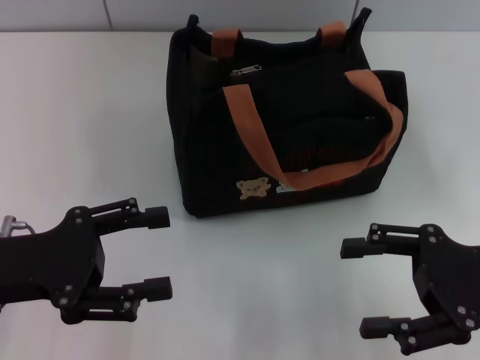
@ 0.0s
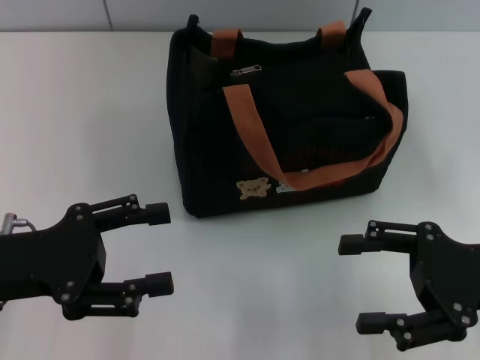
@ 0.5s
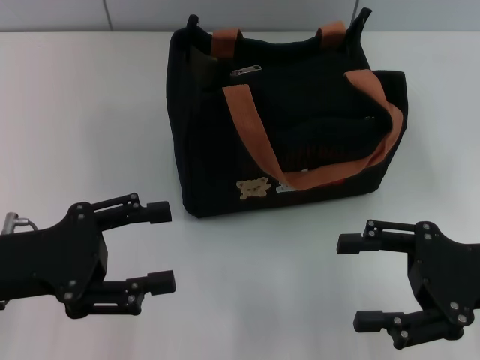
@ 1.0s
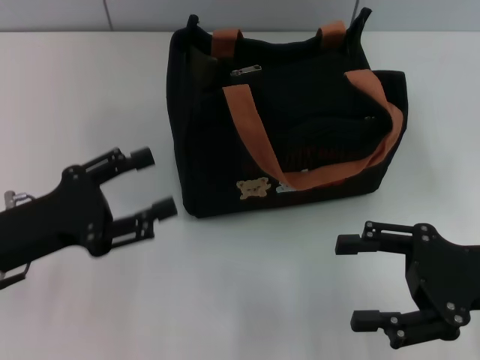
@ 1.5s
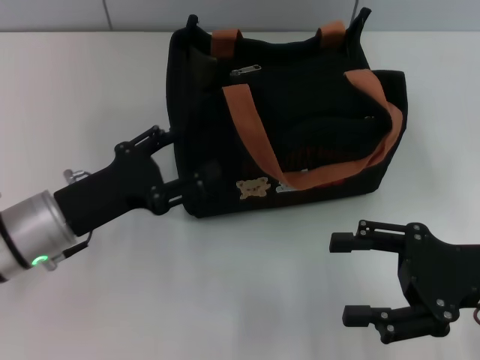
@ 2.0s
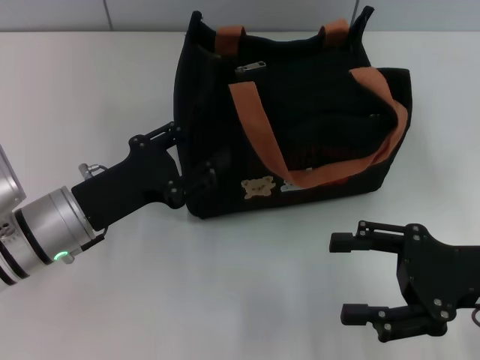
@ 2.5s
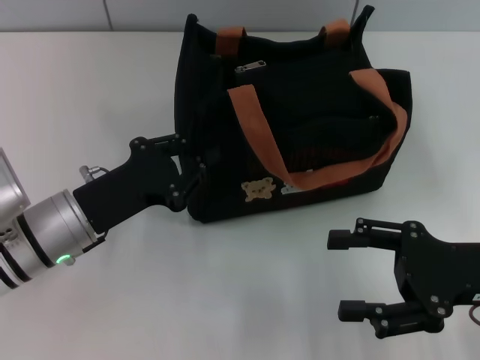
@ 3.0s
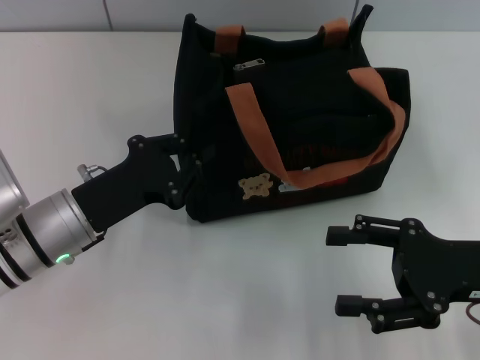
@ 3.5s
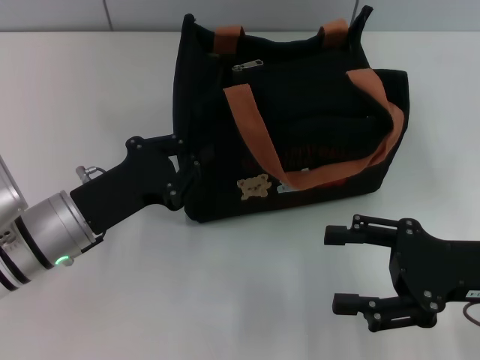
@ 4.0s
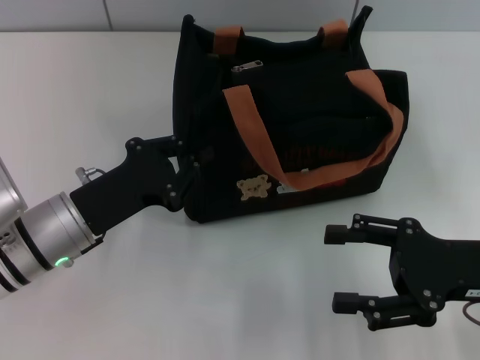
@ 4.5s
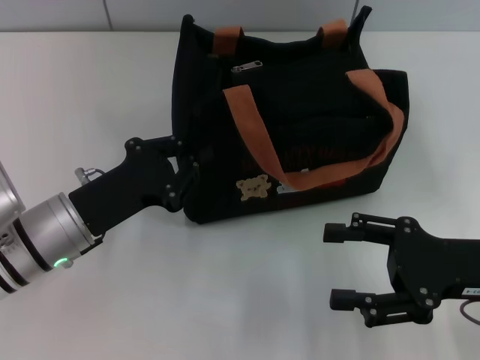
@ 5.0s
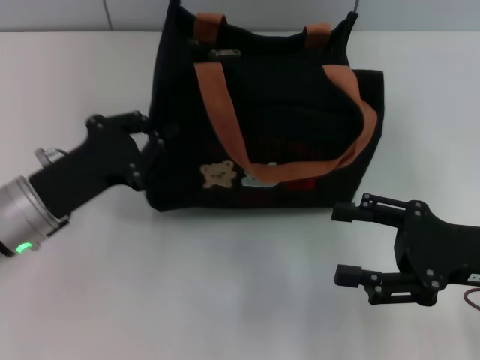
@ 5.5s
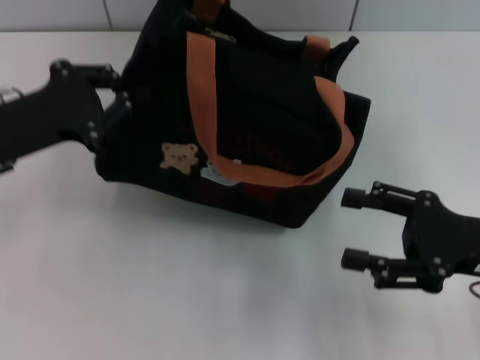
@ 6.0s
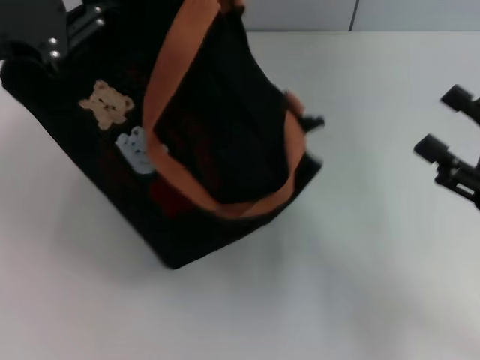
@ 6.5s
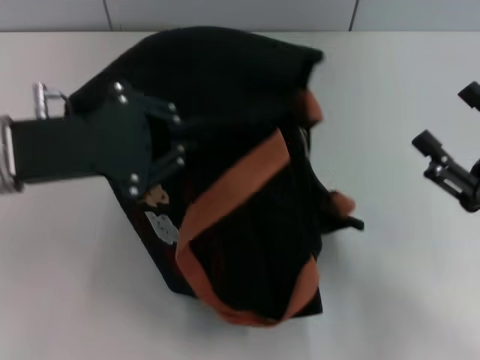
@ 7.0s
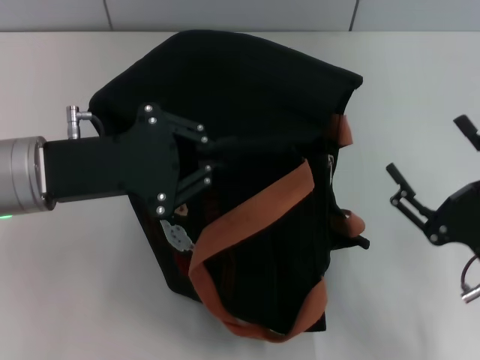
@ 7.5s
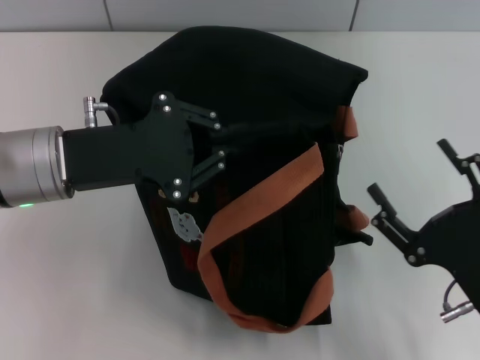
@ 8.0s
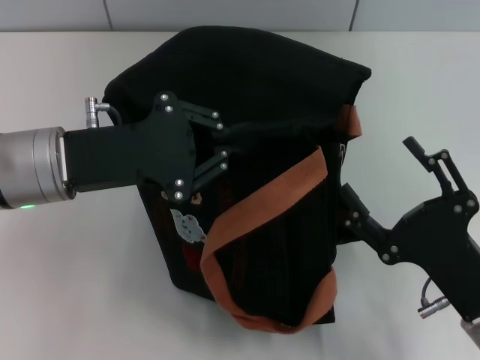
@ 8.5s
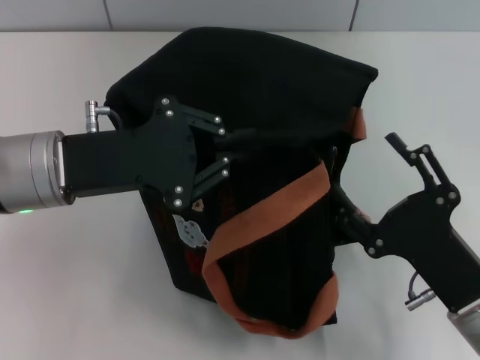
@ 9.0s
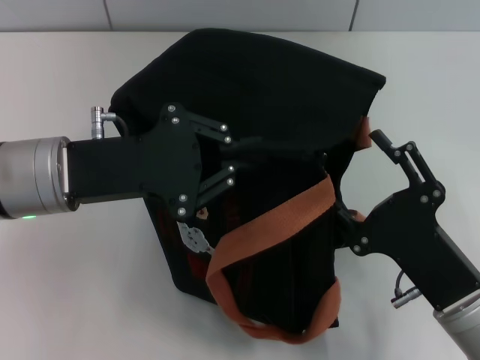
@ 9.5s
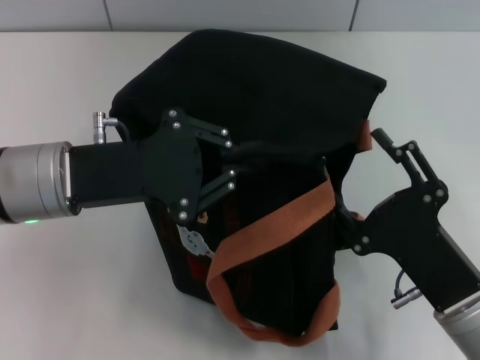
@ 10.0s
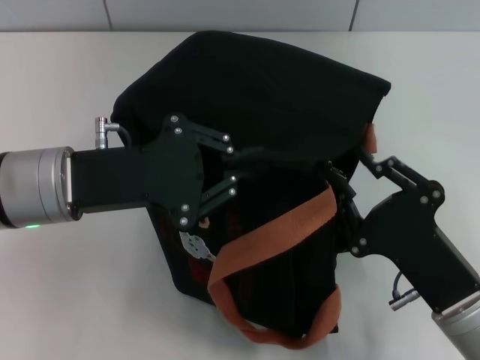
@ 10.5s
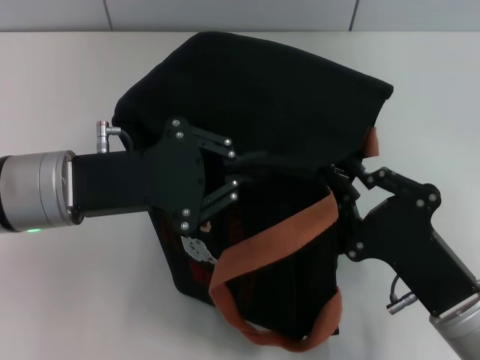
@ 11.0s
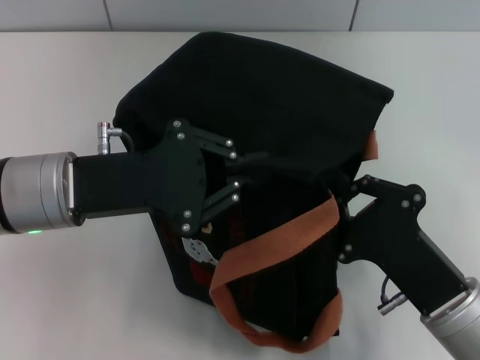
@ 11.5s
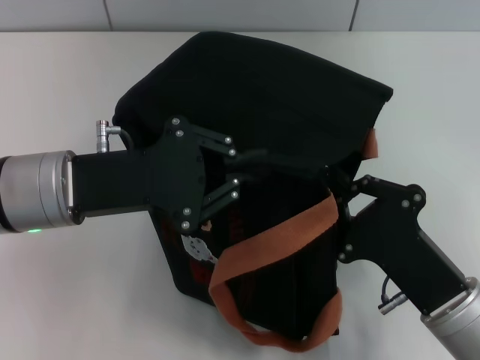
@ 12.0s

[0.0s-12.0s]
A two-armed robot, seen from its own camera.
0.0s to 2.0s: The left gripper heads downward, covering some 5 cm.
2.0s to 4.0s: The left gripper closes up.
4.0s to 6.0s: The left gripper goes roughly 10 cm upward and to the left.
6.0s to 8.0s: The right gripper goes approximately 10 cm backward and downward. The left gripper goes approximately 5 cm to the right, and goes upward and returns, approximately 10 cm each way.
10.0s to 12.0s: The right gripper closes its fingers.

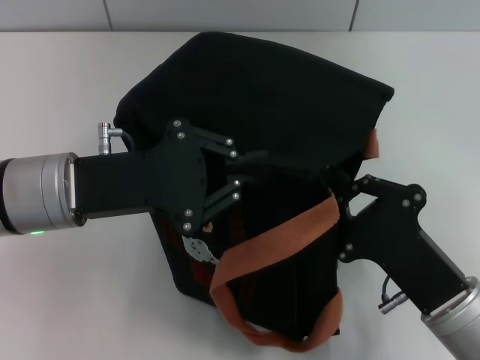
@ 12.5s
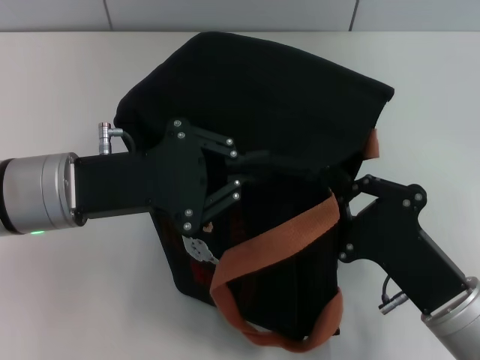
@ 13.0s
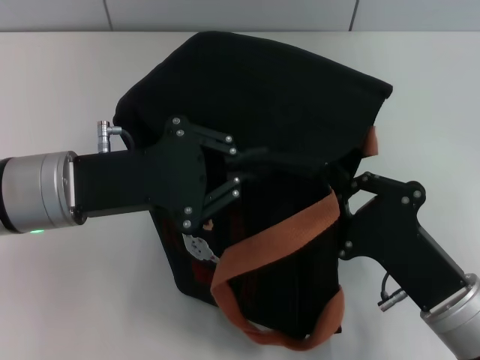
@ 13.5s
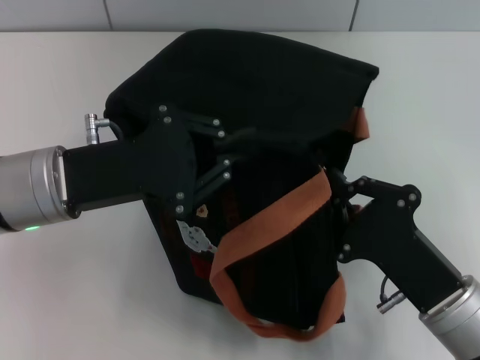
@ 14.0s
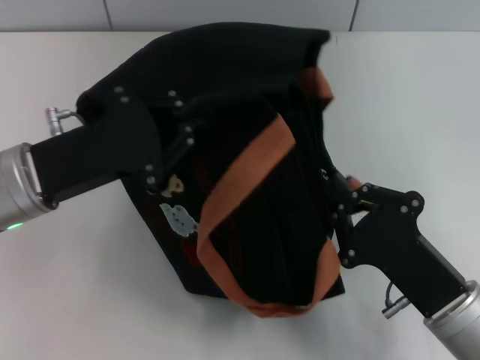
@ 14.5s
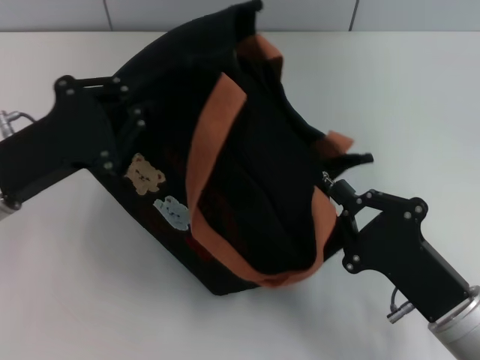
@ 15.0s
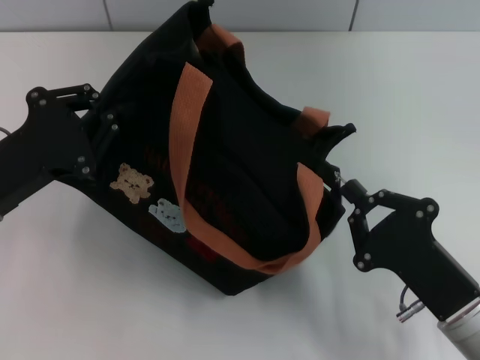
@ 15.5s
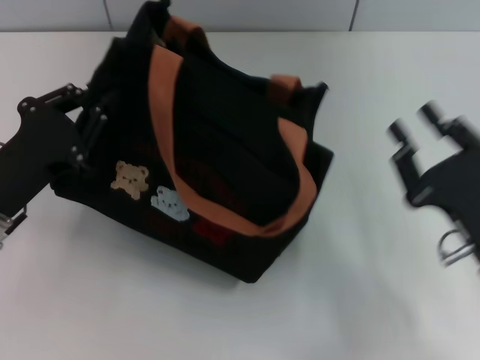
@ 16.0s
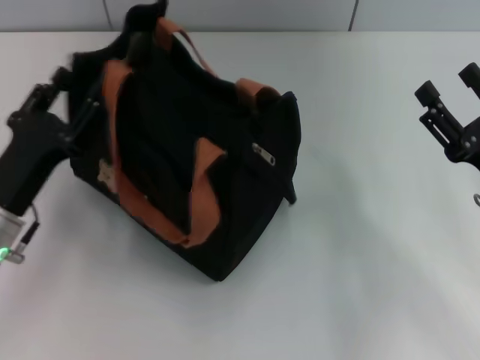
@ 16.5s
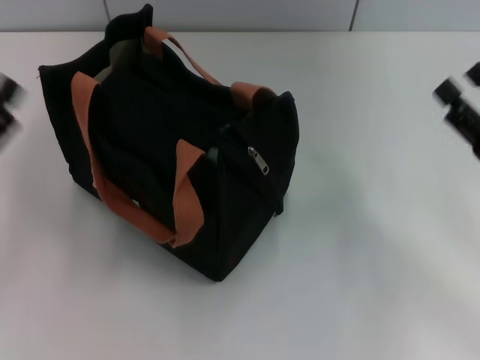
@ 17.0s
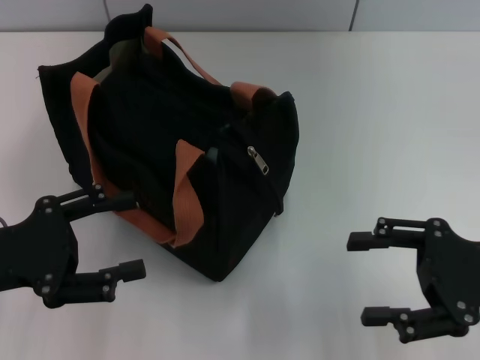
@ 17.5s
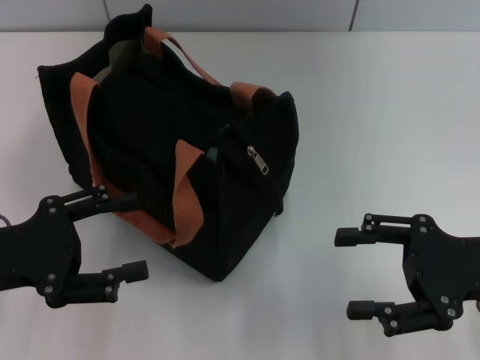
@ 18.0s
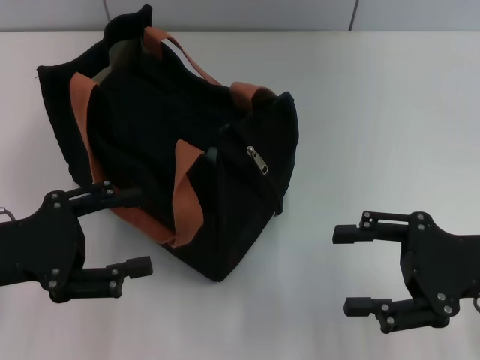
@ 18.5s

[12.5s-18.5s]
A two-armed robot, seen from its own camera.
Step, 12.5s to 15.5s: Pull open the zipper with your right hand.
Step, 16.0s to 16.5s: Grab the bag with your left hand.
14.5s to 16.5s: The right gripper shifts approximately 10 cm to the right and forward, and opens its fingers; the left gripper moves downward, roughly 5 cm, and opens up.
16.5s to 18.5s: The left gripper is displaced upward by roughly 5 cm.

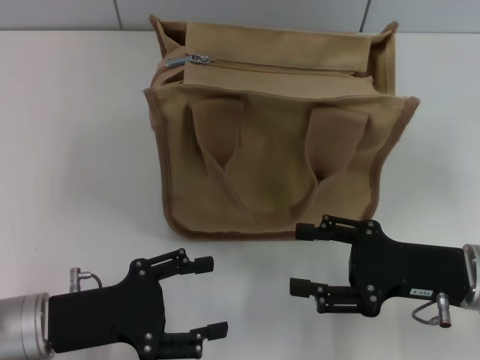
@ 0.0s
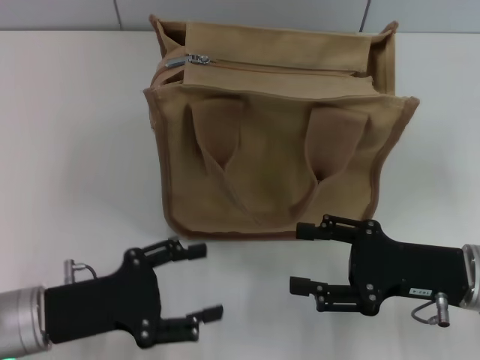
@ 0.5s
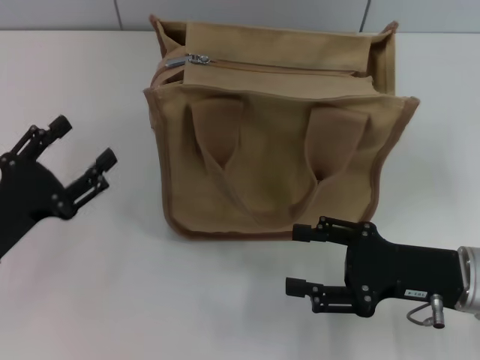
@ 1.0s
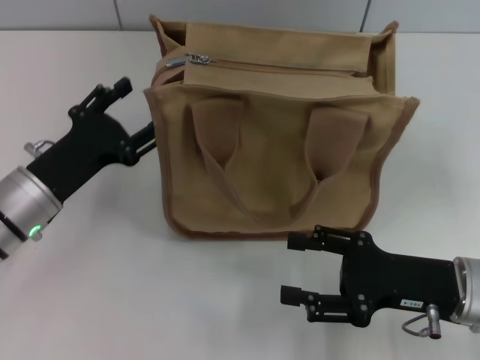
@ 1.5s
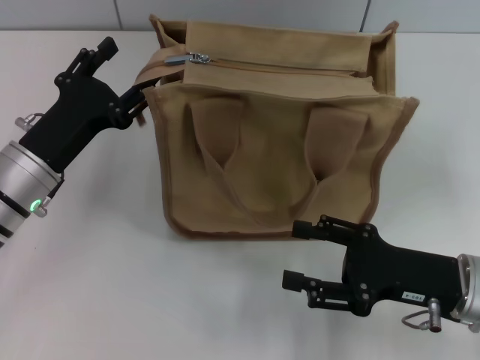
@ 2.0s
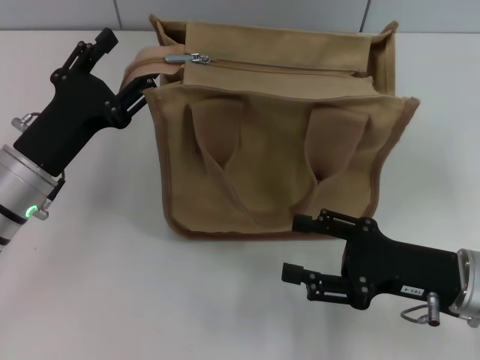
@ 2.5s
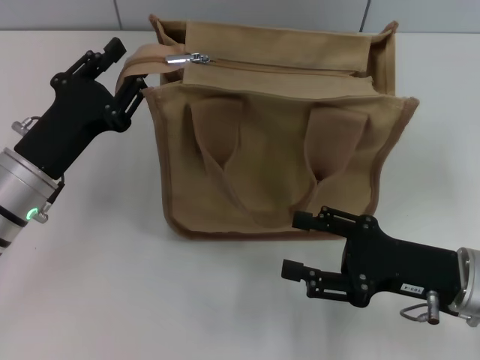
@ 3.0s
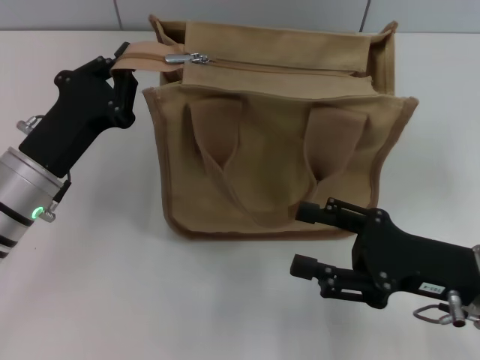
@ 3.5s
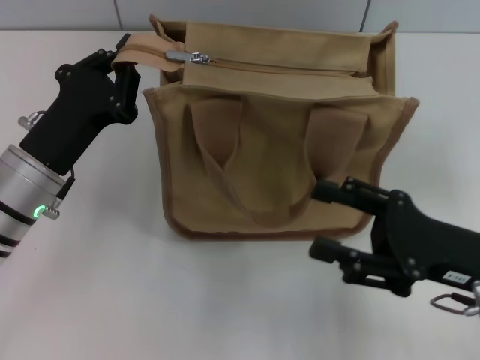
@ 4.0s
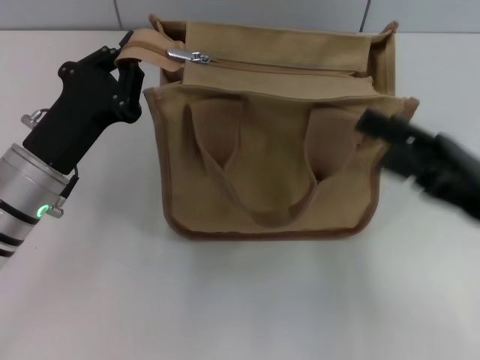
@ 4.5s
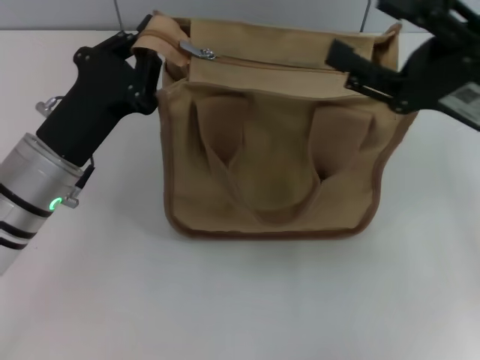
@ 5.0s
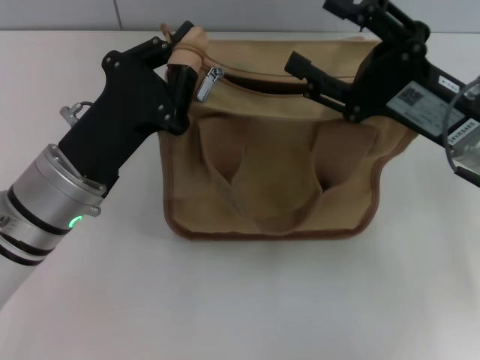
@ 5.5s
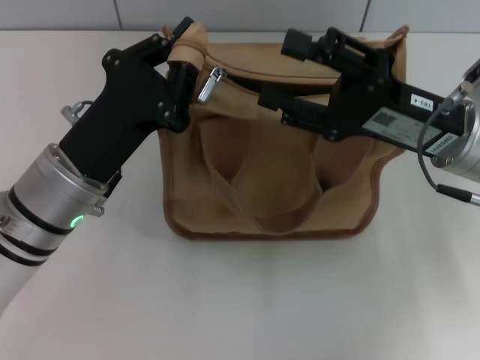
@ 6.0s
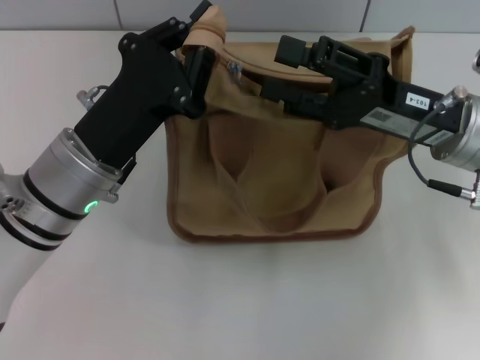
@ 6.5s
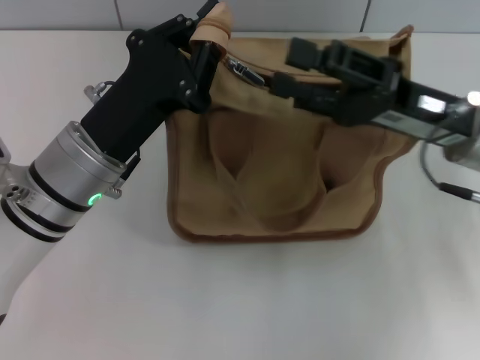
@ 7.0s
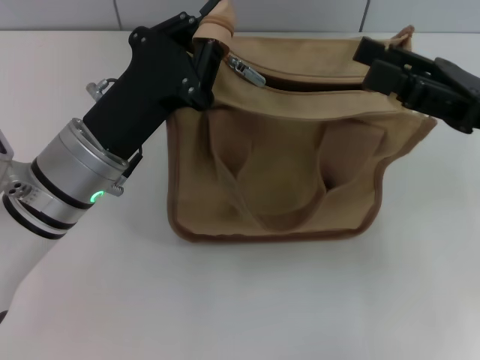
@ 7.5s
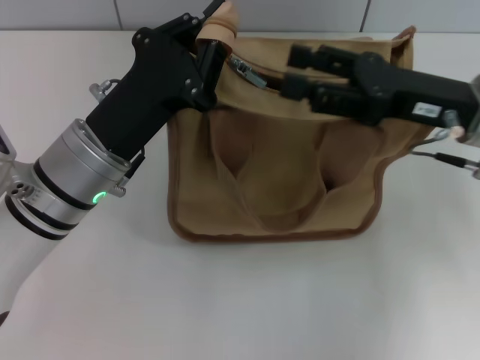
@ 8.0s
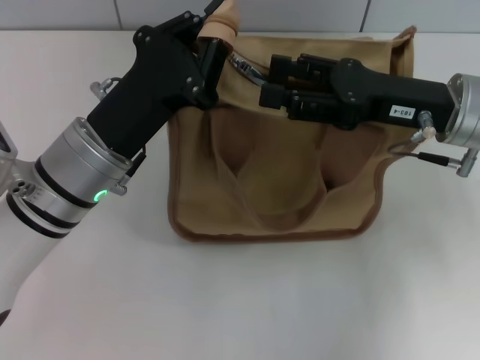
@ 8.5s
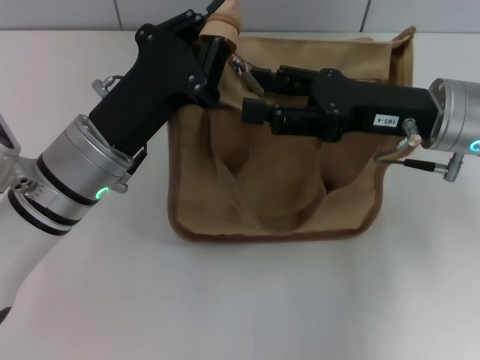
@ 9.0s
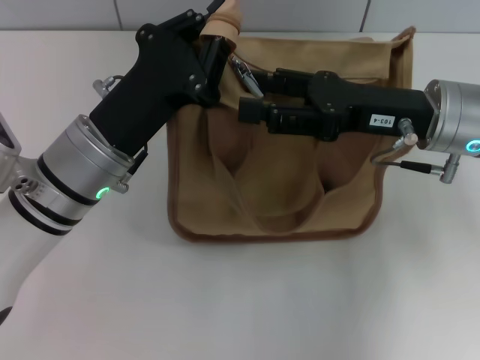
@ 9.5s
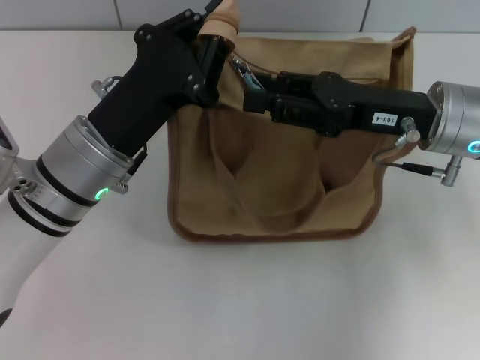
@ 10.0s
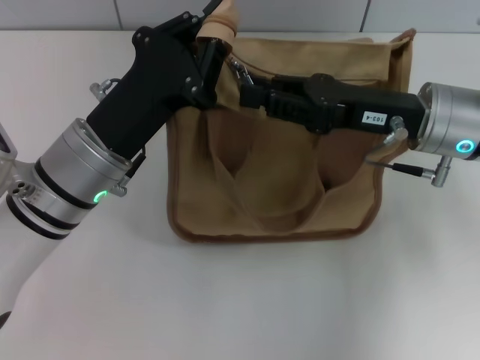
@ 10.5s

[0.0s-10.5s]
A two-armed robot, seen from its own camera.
0.0s to 2.0s: The left gripper travels forward by some 10 cm.
2.0s to 4.0s: The left gripper closes up.
4.0s to 6.5s: The right gripper travels forward and upward by roughly 10 cm. The left gripper moves to the right, some 5 cm.
8.5s to 10.5s: The right gripper closes.
